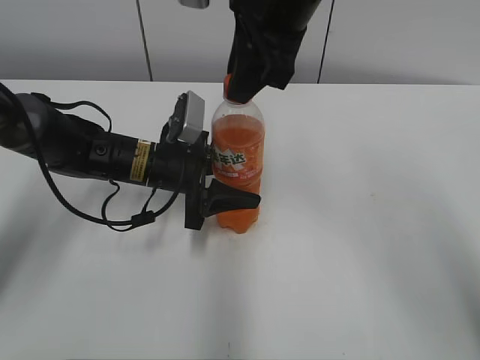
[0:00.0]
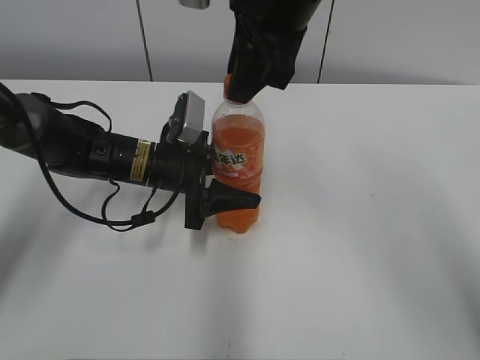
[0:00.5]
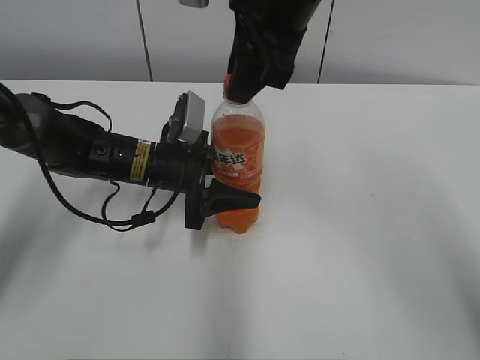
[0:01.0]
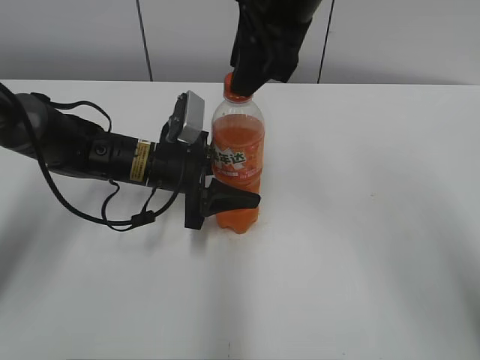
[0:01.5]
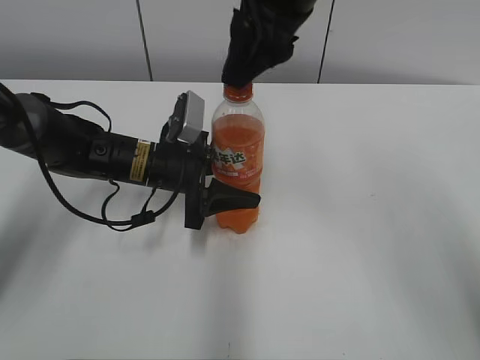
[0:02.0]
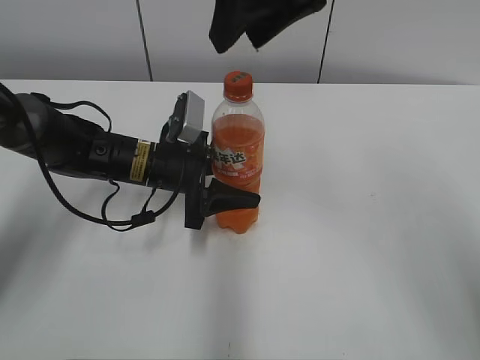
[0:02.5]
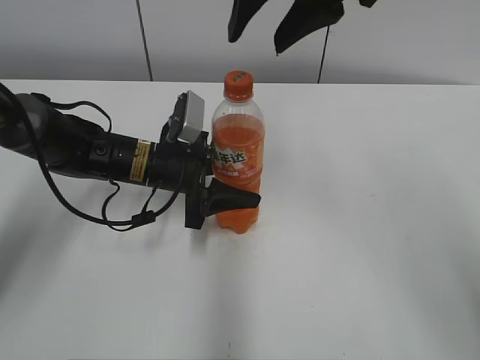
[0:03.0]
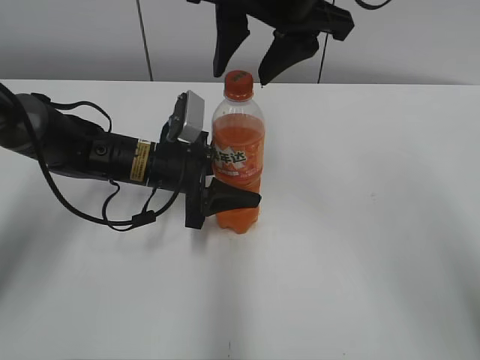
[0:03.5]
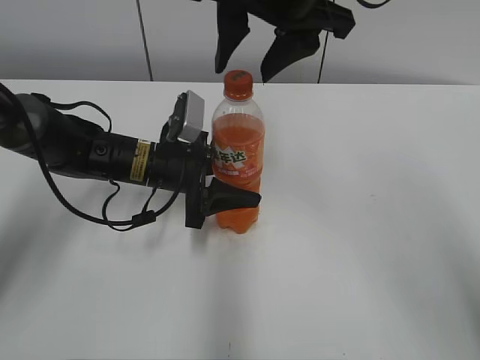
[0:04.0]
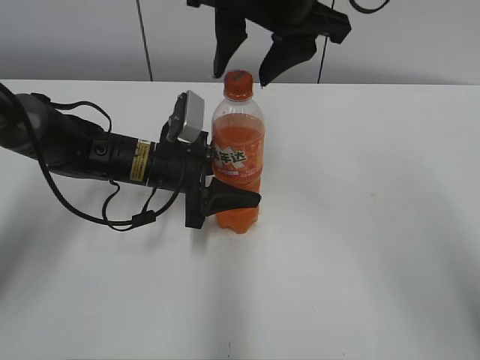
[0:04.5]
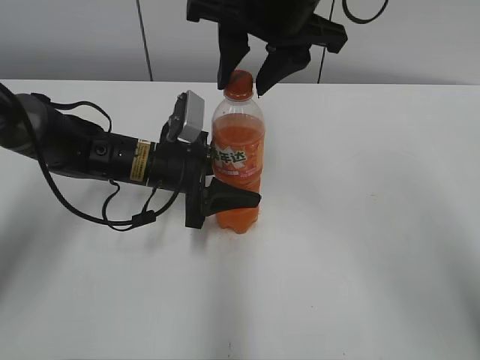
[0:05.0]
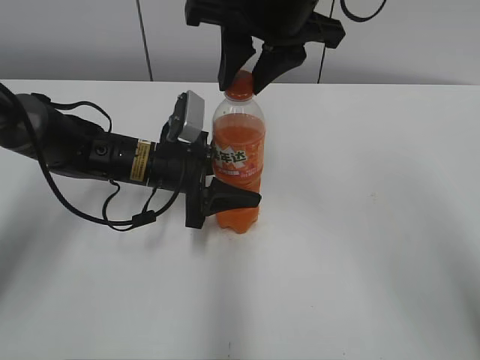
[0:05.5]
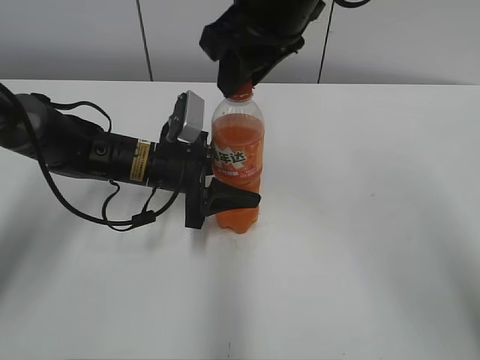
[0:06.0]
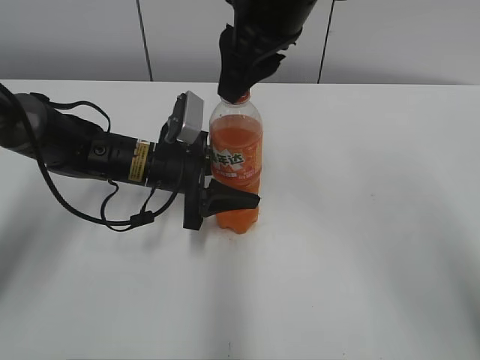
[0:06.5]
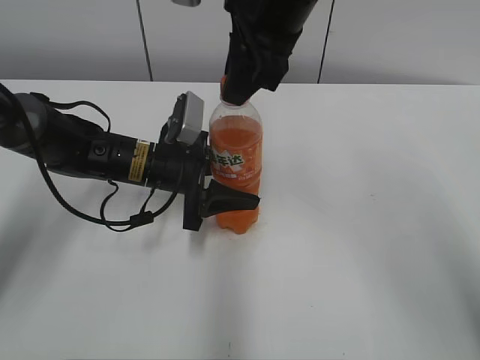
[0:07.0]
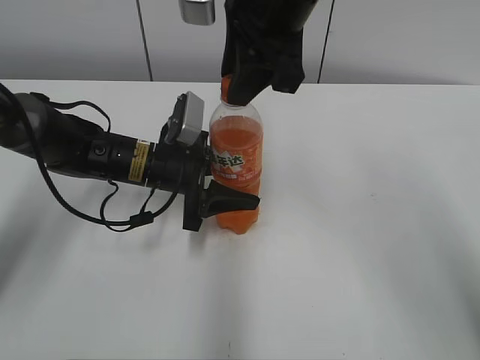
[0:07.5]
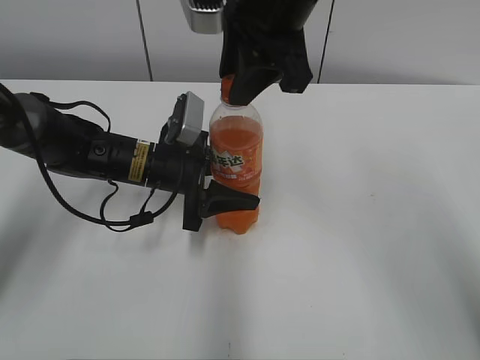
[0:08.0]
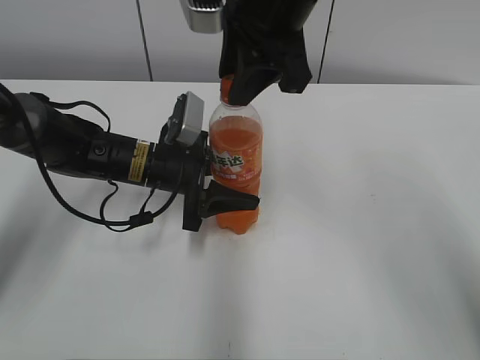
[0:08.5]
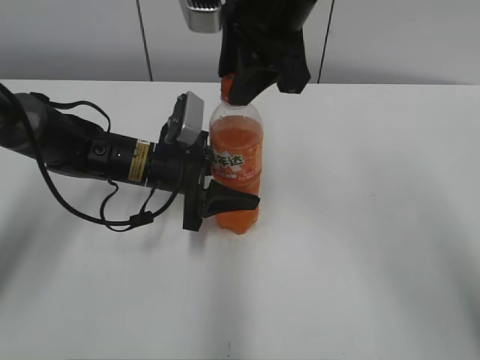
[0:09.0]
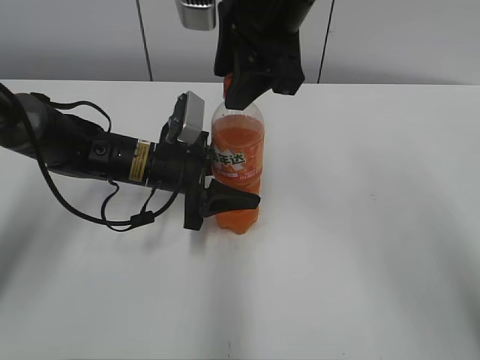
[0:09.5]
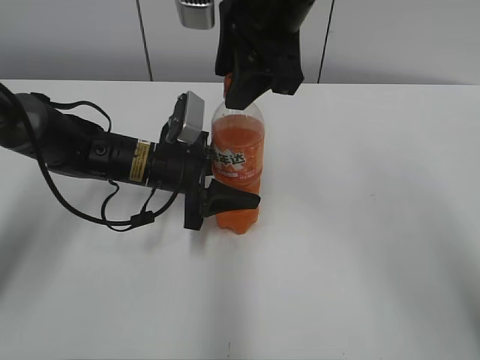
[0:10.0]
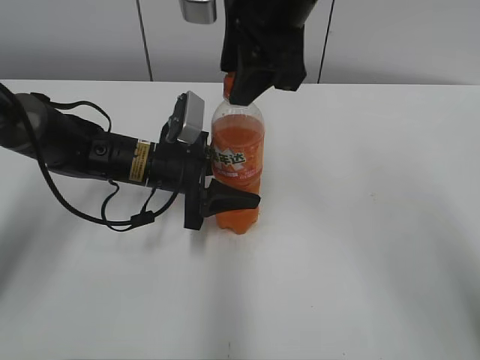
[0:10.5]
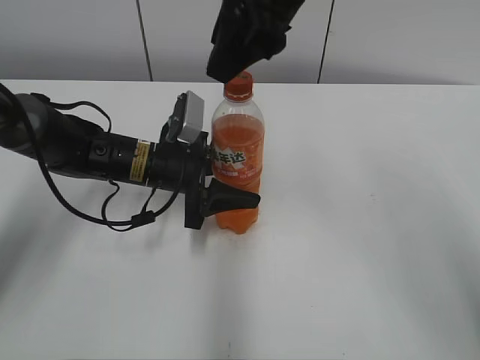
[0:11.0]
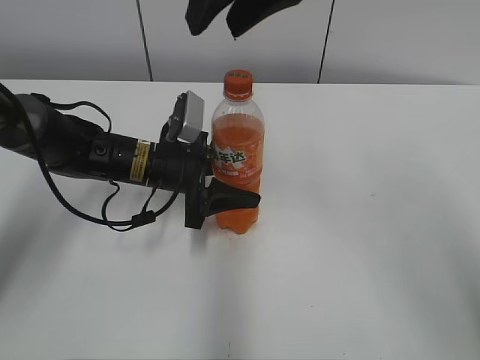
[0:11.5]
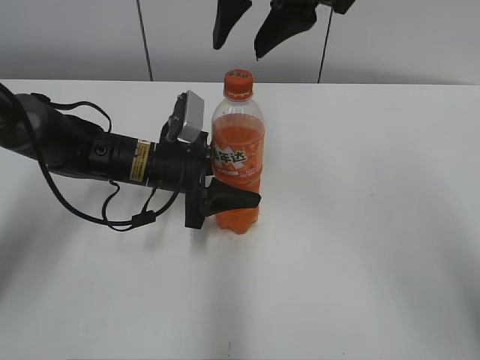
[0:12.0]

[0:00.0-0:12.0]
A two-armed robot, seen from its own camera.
0:00.0 to 0:02.0: The right gripper opens up.
0:04.0 to 0:06.0: The right gripper closes.
0:08.0 to 0:10.0: The right gripper opens.

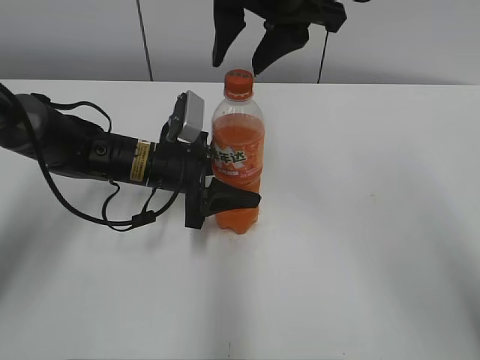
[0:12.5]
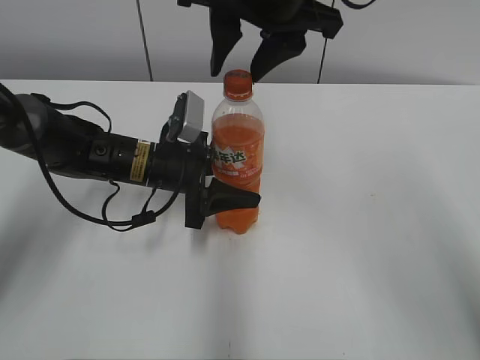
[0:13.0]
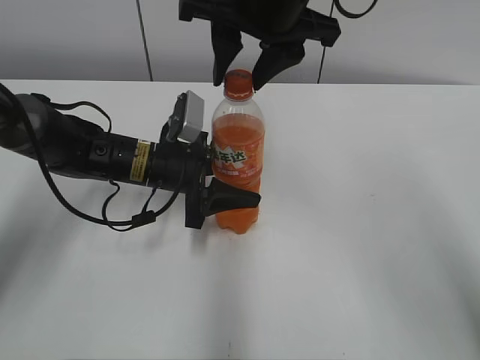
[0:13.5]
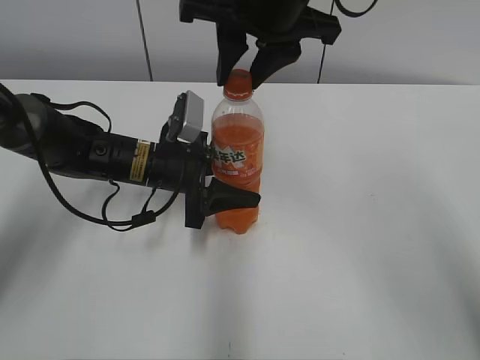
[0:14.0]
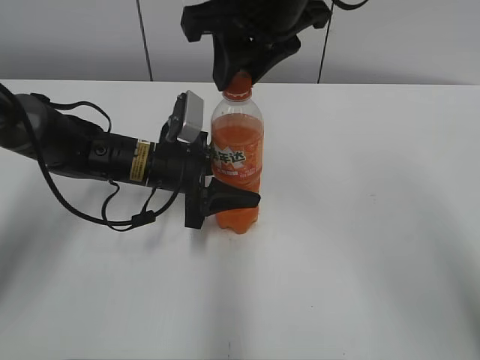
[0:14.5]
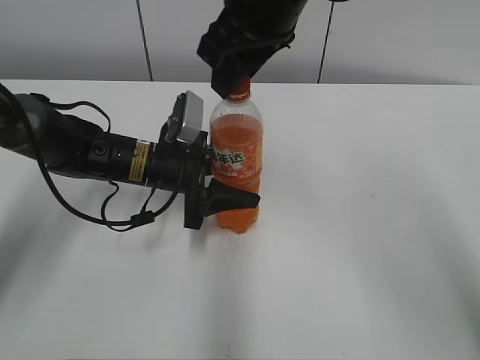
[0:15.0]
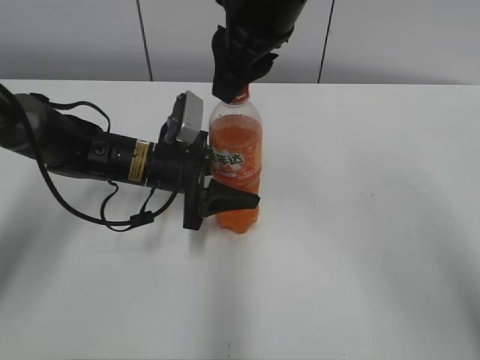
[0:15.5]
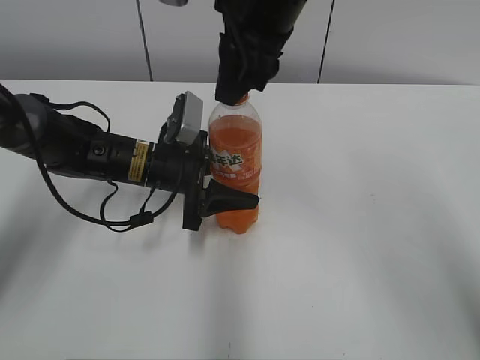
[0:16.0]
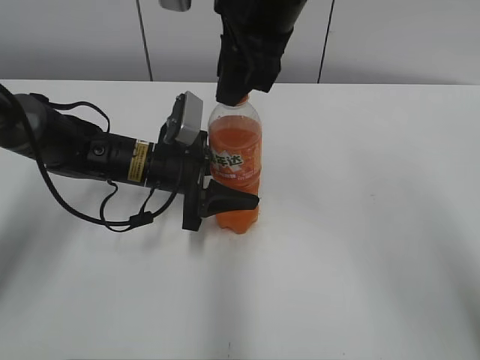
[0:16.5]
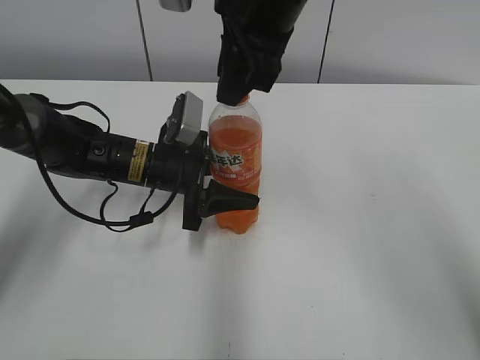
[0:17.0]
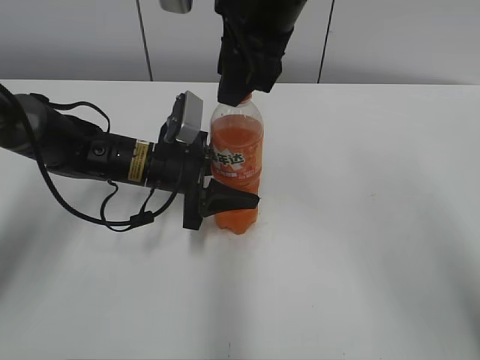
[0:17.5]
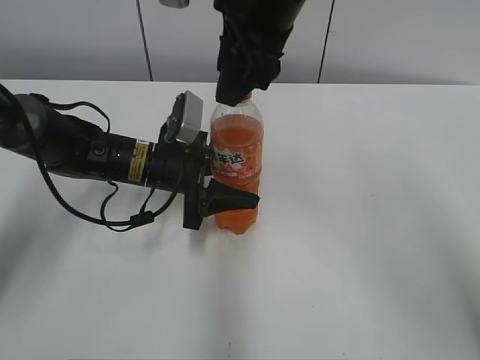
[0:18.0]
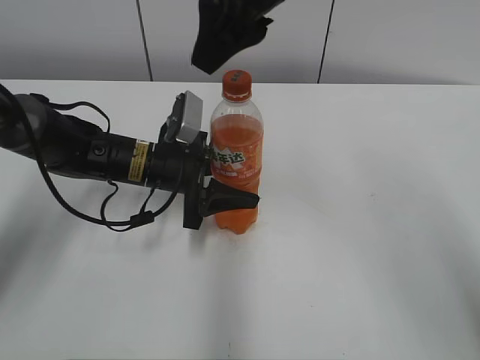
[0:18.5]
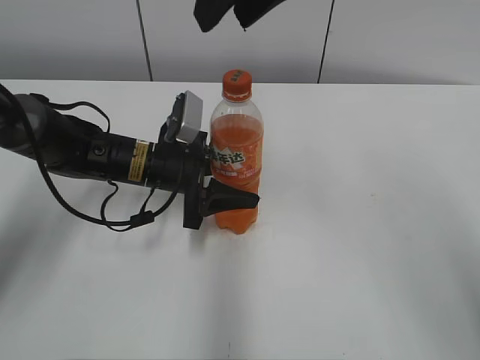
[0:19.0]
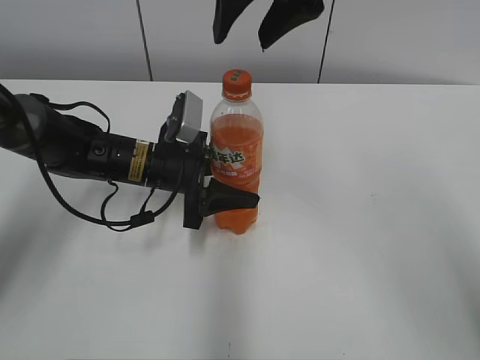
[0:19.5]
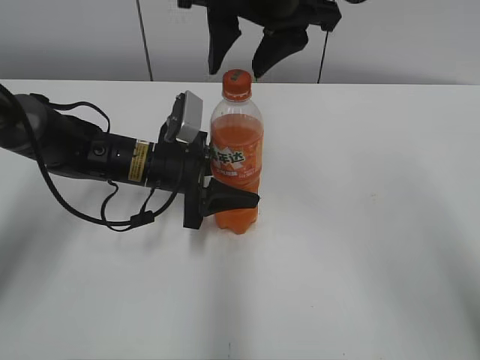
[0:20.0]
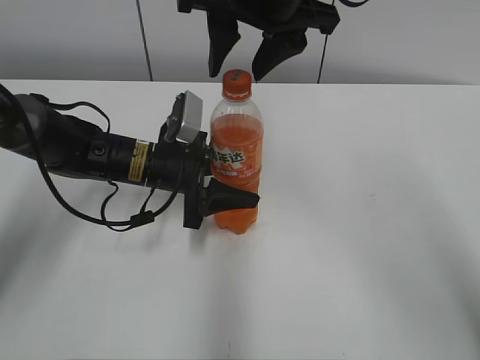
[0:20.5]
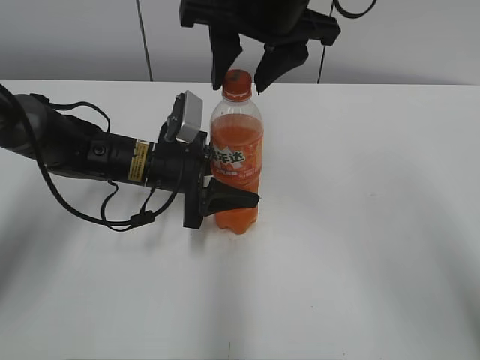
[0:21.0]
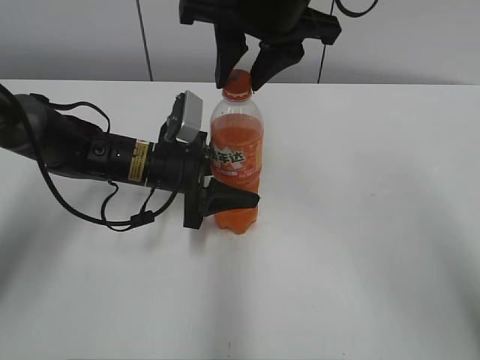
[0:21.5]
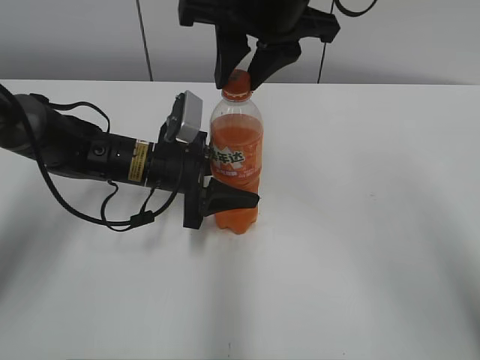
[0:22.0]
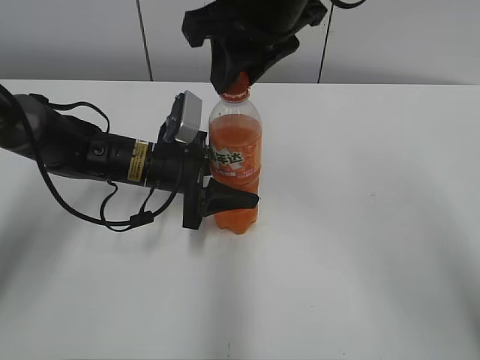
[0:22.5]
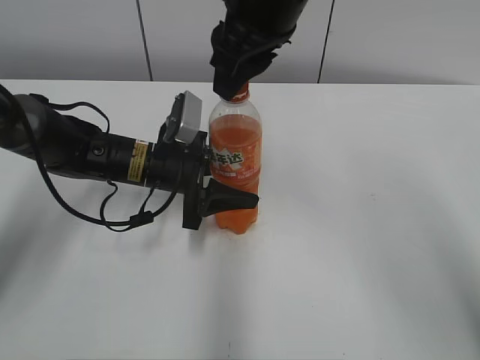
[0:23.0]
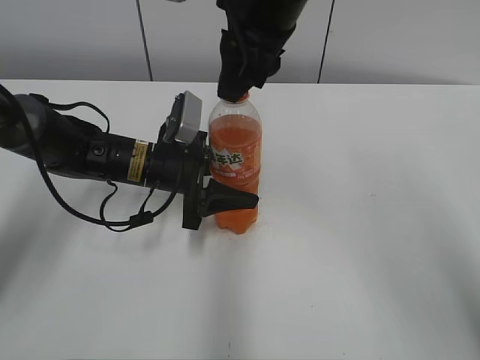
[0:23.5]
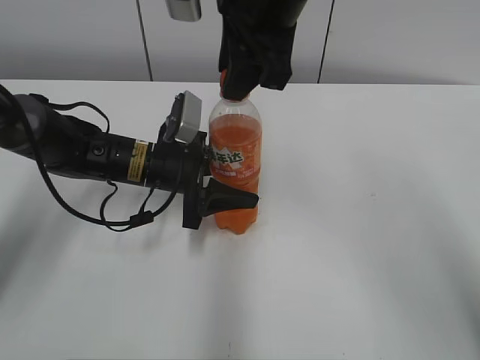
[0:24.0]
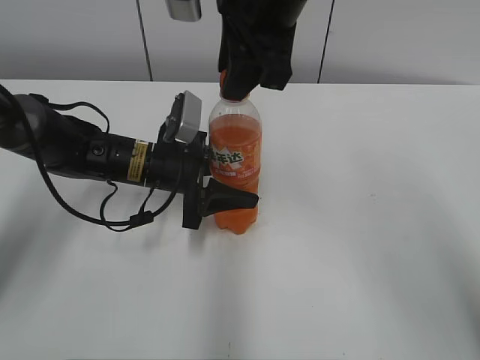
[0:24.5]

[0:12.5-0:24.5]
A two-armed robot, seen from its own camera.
0:12.5 to 0:14.5: The right gripper closes up.
0:16.5 to 0:18.5: The right gripper opens up.
0:20.5 to 0:22.5: The right gripper closes.

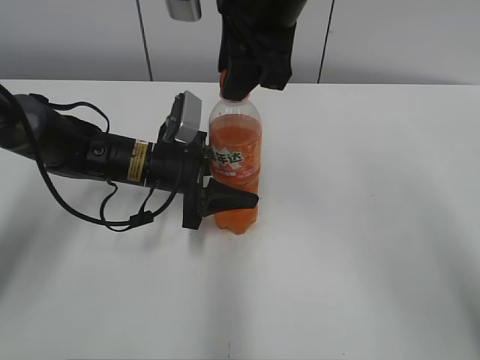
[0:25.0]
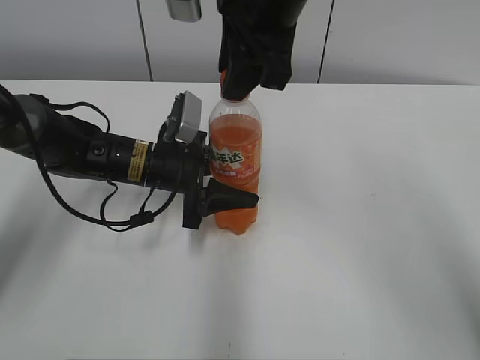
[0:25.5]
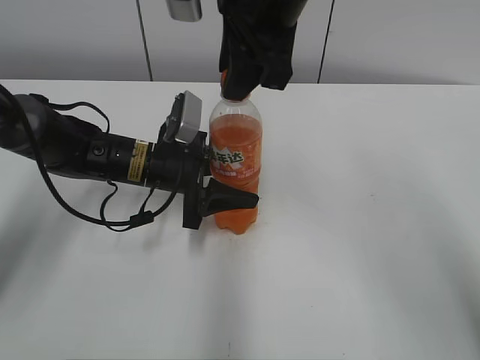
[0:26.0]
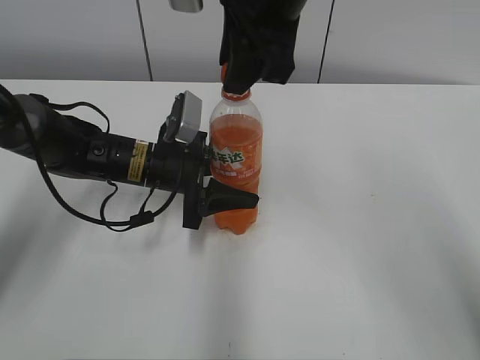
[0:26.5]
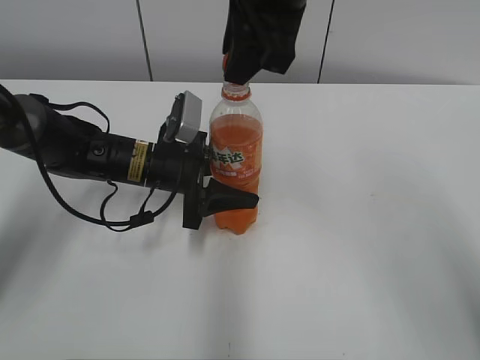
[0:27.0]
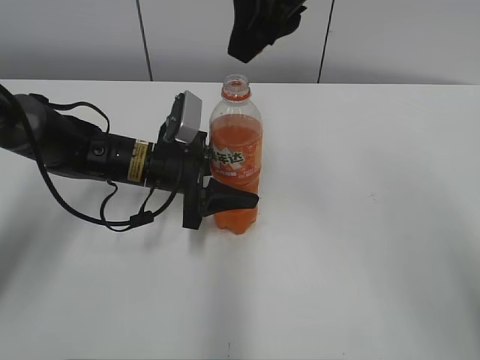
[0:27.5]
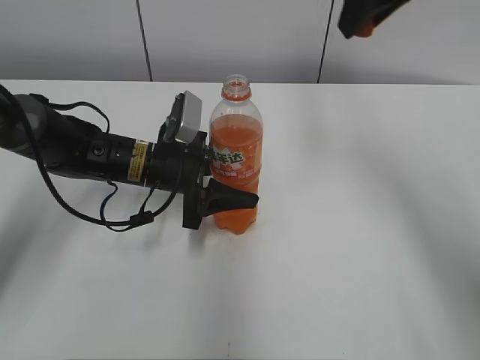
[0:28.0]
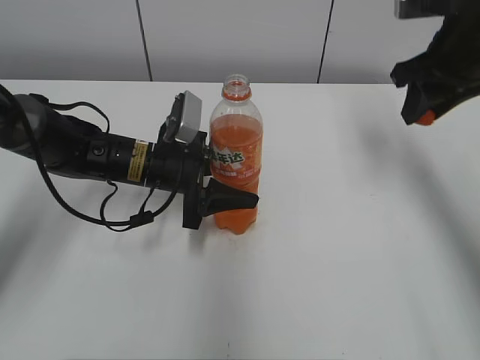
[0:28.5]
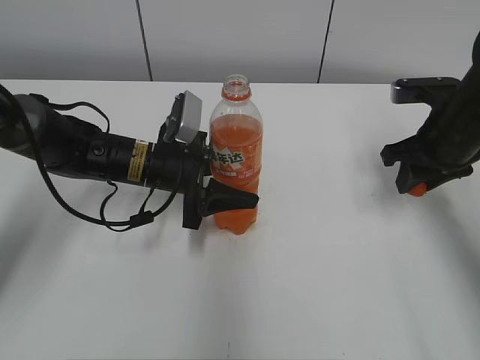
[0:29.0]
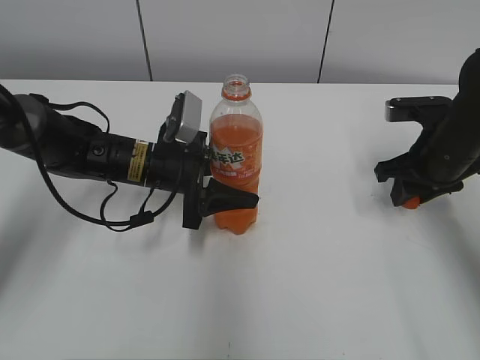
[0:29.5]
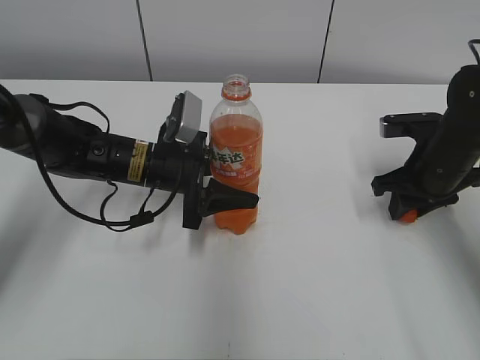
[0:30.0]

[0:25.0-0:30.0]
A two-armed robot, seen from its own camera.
0:27.5 to 0:30.0: The right gripper travels downward and to the right by some 30 cm.
